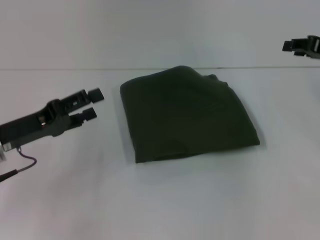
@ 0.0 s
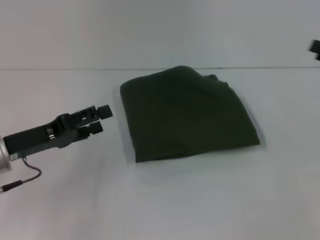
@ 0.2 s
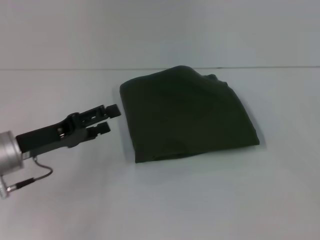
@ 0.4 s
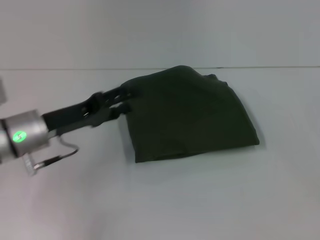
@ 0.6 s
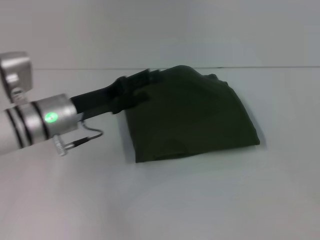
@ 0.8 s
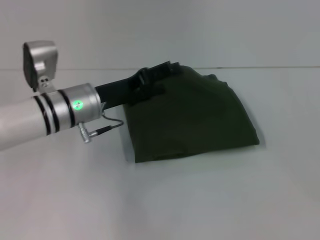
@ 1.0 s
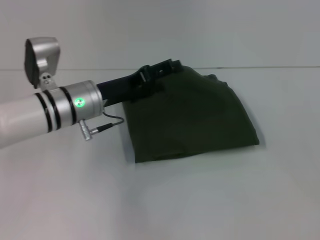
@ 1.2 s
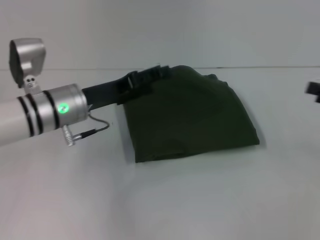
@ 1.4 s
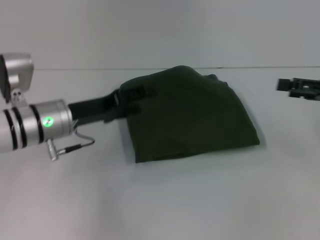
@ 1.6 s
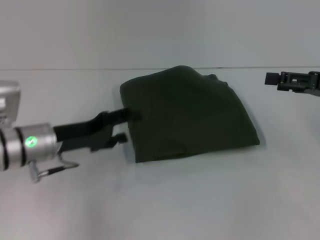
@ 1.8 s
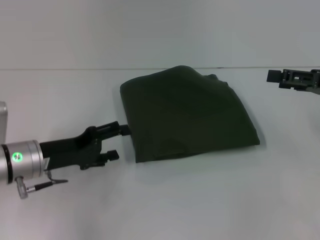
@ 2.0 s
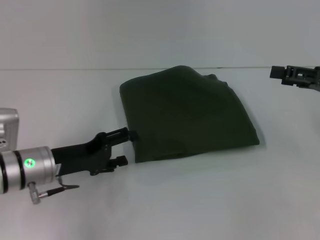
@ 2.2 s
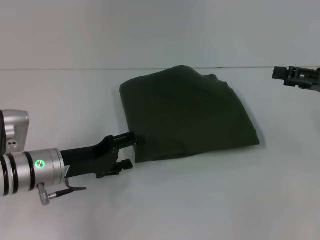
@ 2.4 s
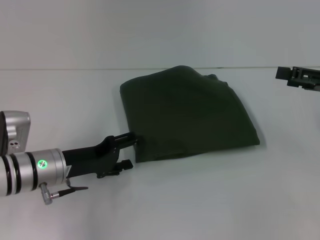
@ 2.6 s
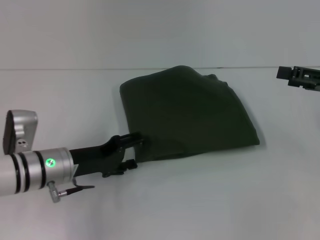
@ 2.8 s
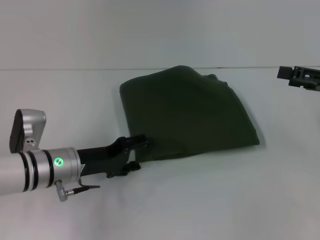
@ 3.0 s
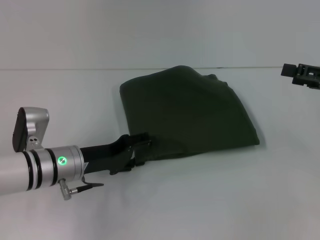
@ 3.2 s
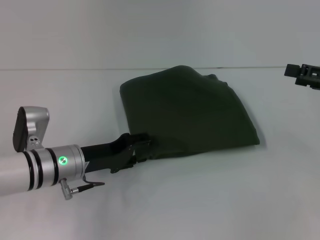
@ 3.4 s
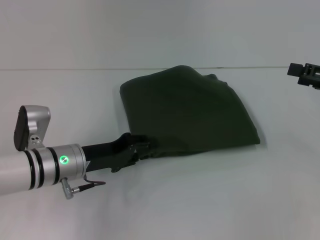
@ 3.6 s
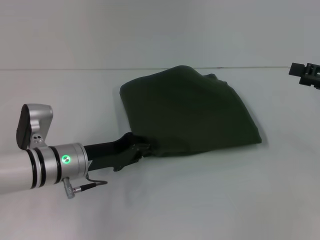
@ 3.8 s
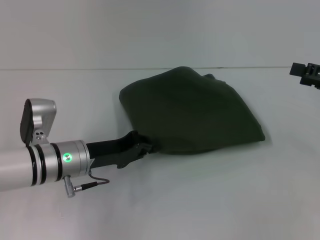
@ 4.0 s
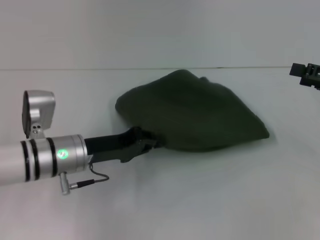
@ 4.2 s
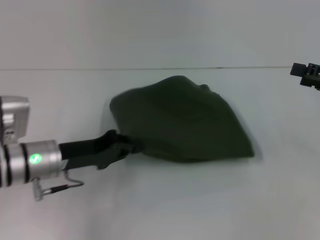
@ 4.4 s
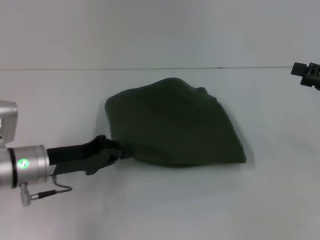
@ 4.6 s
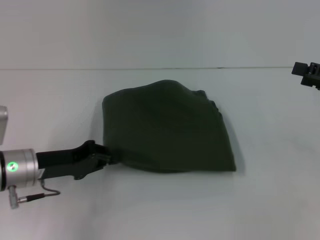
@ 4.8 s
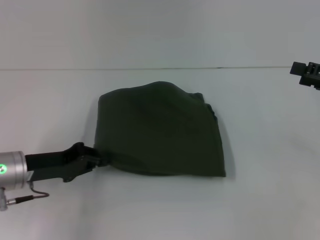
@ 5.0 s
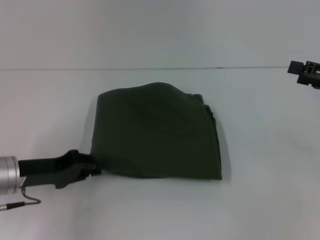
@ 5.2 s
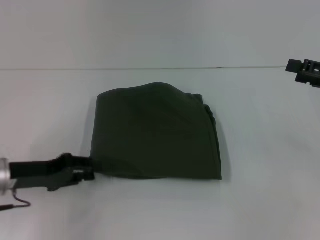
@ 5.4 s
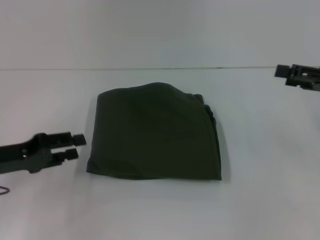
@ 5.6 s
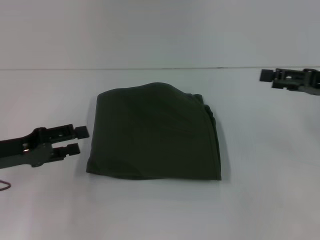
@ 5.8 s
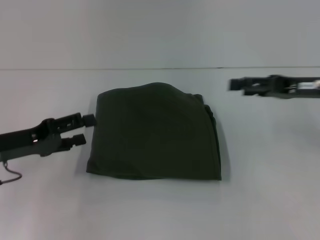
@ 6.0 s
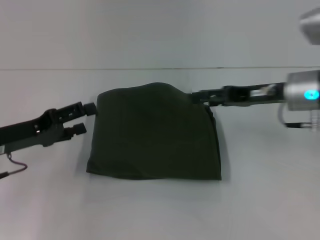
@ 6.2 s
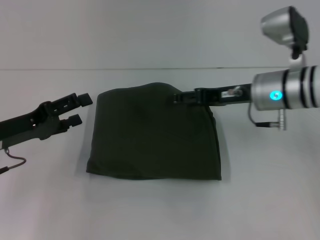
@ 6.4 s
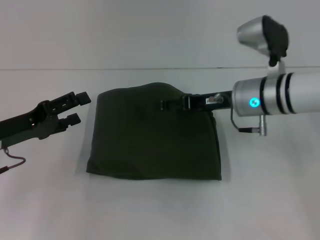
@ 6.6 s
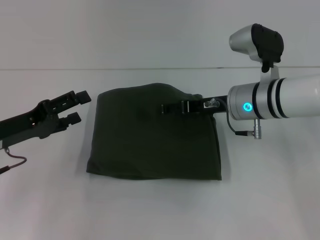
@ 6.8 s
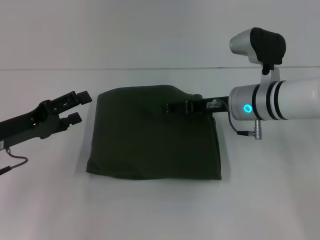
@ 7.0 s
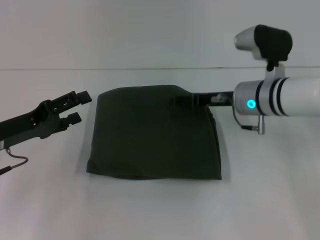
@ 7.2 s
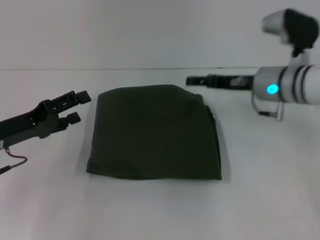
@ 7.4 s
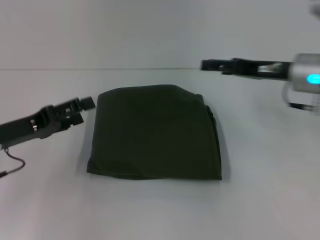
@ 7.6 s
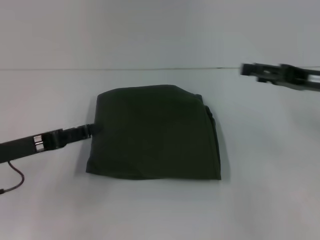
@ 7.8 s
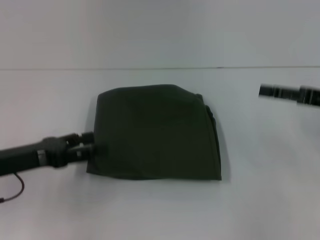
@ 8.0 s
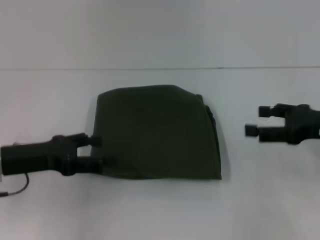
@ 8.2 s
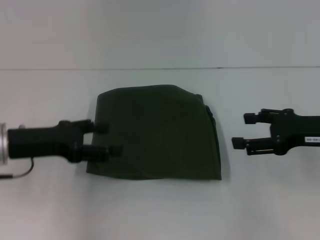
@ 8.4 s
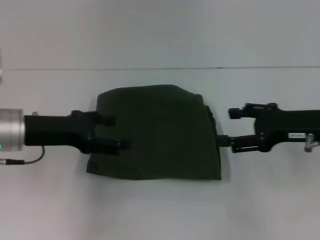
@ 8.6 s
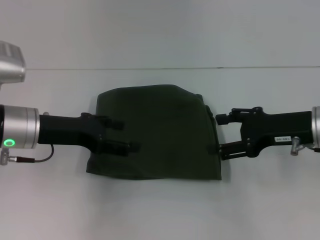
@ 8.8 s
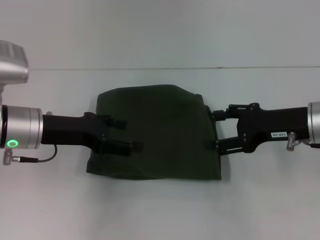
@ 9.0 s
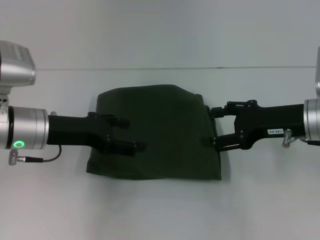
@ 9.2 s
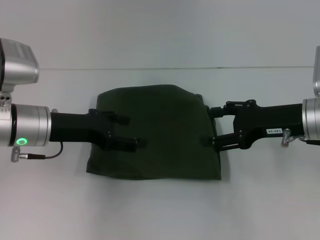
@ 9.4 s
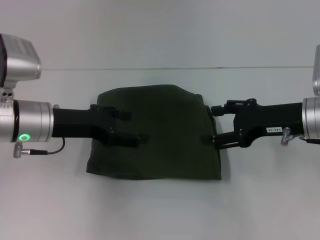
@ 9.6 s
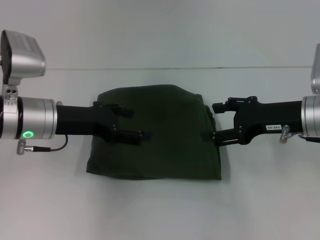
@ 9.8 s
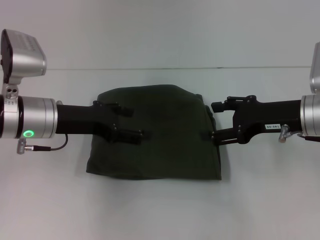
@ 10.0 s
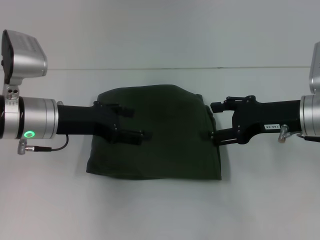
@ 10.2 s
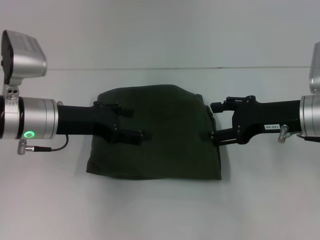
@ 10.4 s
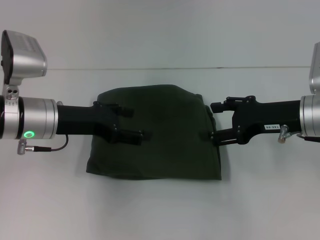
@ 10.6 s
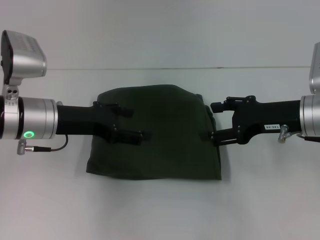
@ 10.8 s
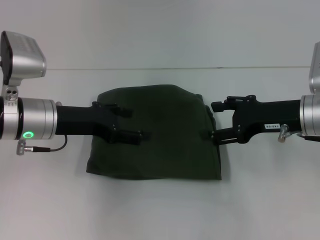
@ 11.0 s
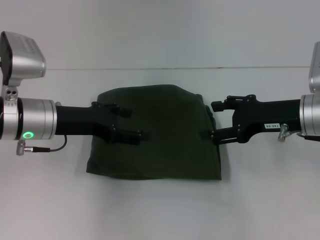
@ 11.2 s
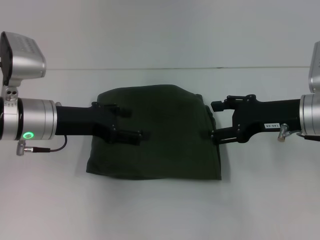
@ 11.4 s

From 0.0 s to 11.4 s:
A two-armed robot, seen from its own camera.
From 0.0 s to 1.4 s: The left gripper heads to the right and forward, covering about 10 cm. Meanwhile the right gripper heads backward and to the right, covering roughly 10 cm, and opens.
From 1.4 s to 2.8 s: The right gripper shifts by about 5 cm. Meanwhile the left gripper shifts roughly 10 cm downward and backward.
From 2.8 s to 4.2 s: The left gripper closes its fingers.
From 4.2 s to 5.6 s: The left gripper is displaced to the left by approximately 15 cm.
From 5.6 s to 7.2 s: The right gripper travels to the left by roughly 20 cm. The left gripper opens.
From 7.2 s to 8.6 s: The right gripper goes approximately 15 cm to the right and backward; the left gripper changes place by approximately 5 cm.
From 8.6 s to 10.0 s: There are only small adjustments of the grippers.
From 10.0 s to 11.4 s: Both grippers stay put.
